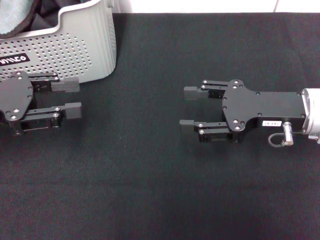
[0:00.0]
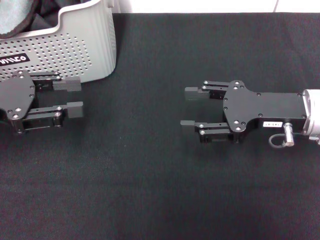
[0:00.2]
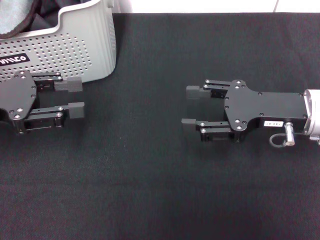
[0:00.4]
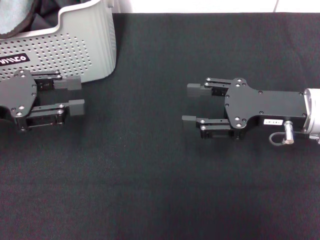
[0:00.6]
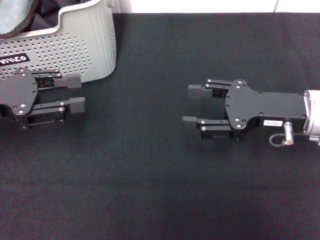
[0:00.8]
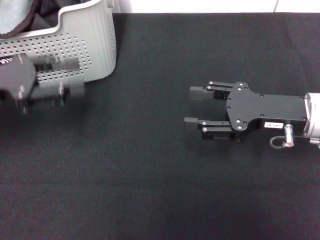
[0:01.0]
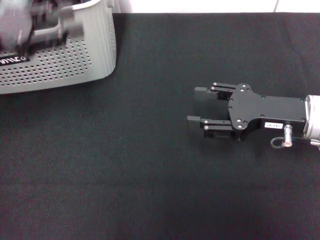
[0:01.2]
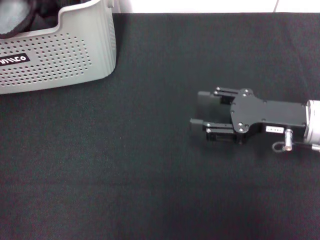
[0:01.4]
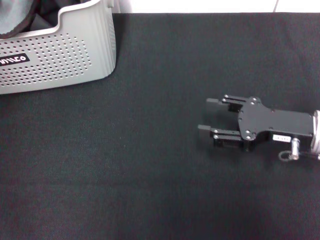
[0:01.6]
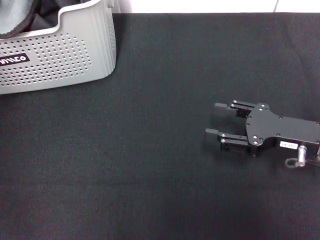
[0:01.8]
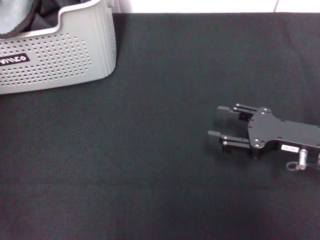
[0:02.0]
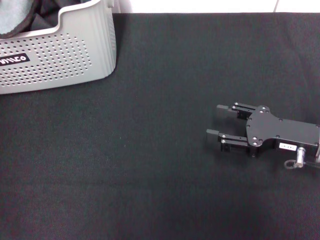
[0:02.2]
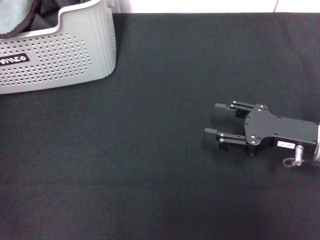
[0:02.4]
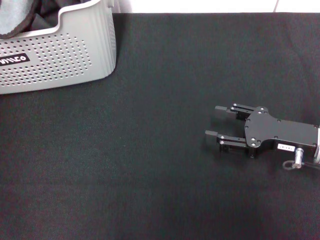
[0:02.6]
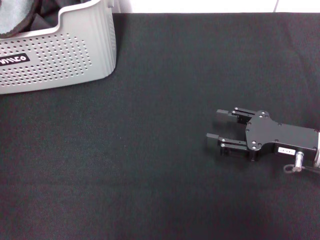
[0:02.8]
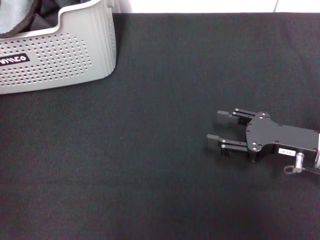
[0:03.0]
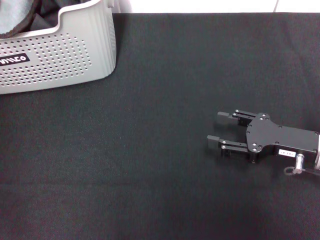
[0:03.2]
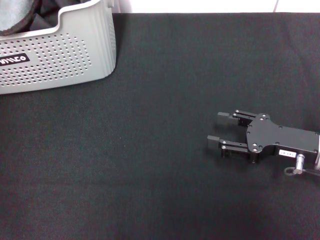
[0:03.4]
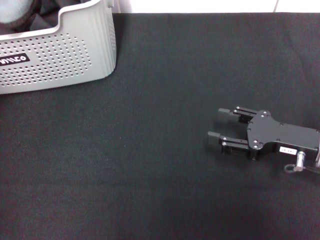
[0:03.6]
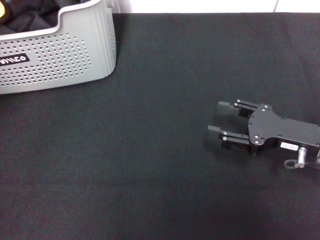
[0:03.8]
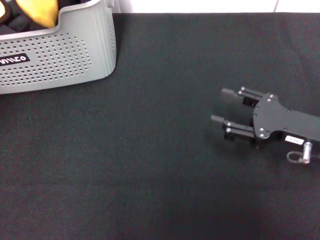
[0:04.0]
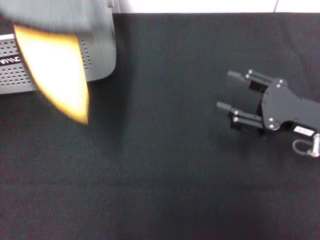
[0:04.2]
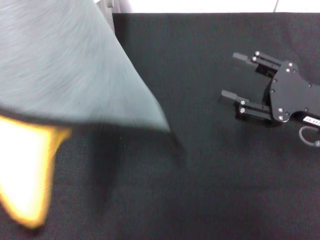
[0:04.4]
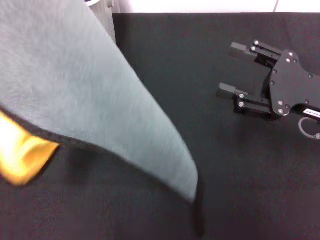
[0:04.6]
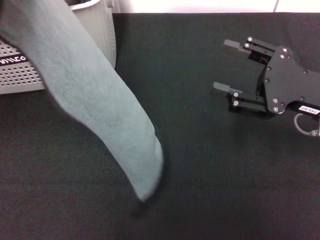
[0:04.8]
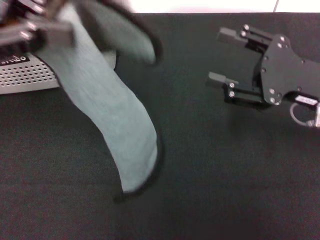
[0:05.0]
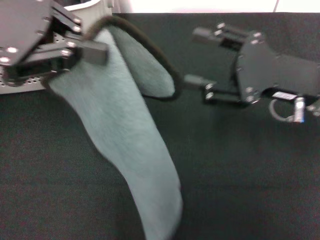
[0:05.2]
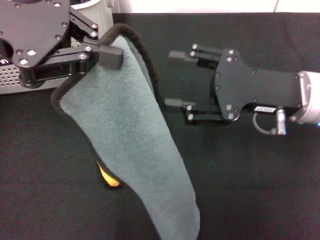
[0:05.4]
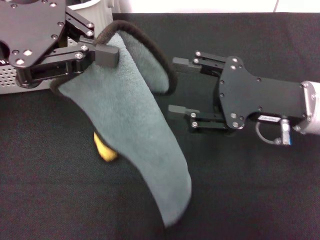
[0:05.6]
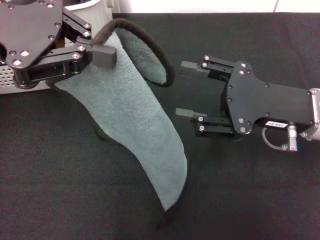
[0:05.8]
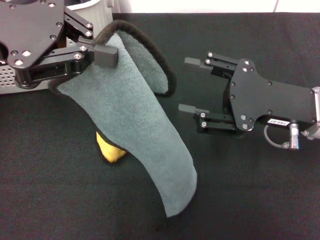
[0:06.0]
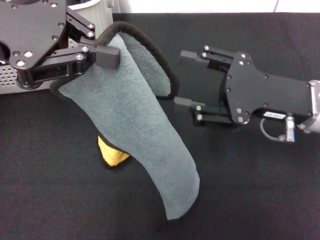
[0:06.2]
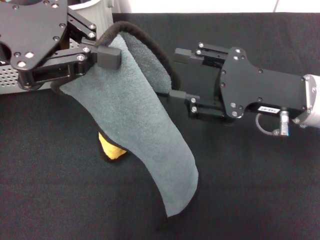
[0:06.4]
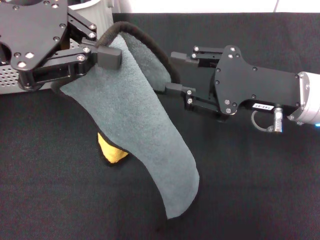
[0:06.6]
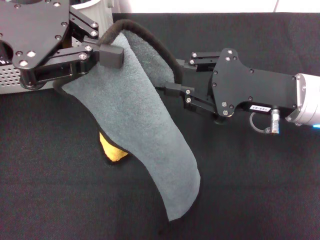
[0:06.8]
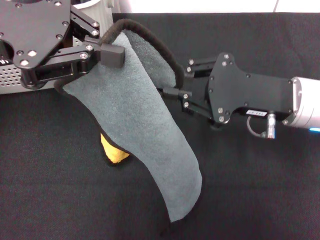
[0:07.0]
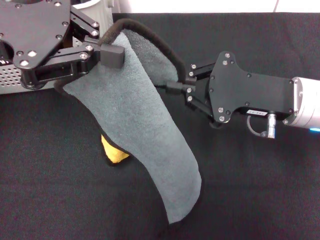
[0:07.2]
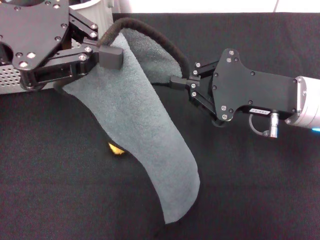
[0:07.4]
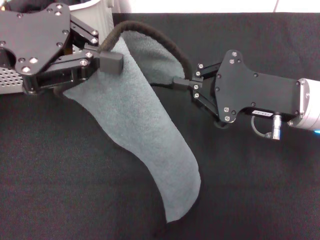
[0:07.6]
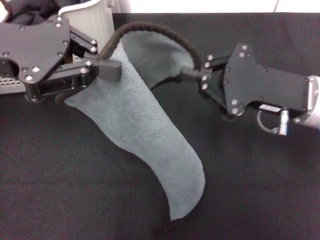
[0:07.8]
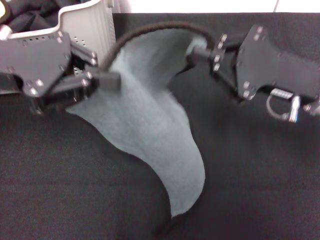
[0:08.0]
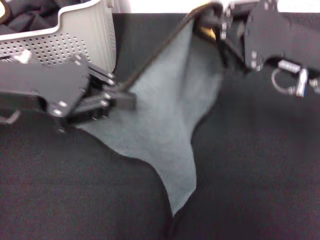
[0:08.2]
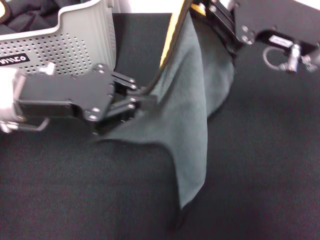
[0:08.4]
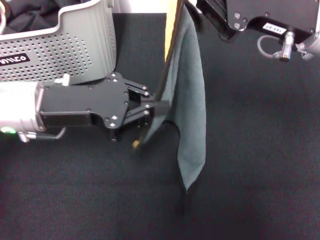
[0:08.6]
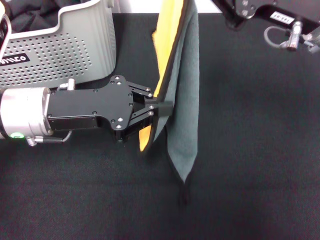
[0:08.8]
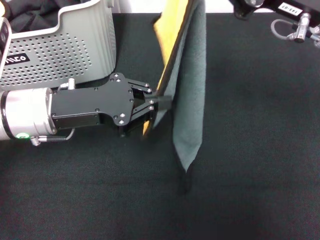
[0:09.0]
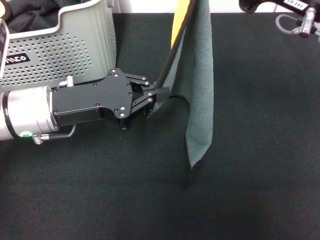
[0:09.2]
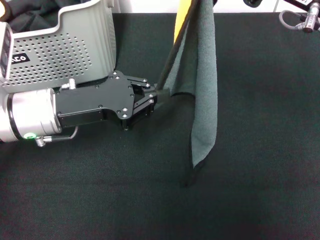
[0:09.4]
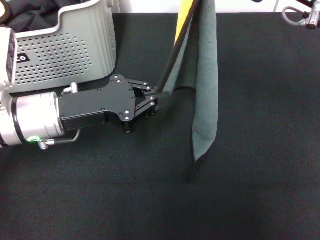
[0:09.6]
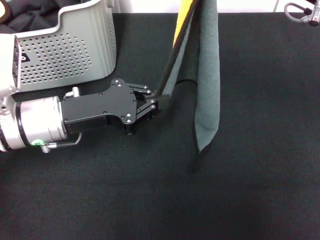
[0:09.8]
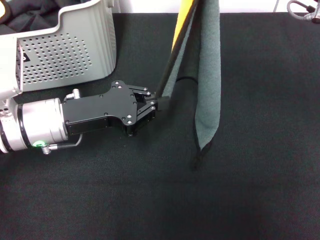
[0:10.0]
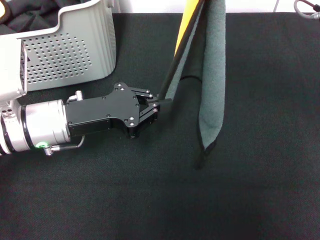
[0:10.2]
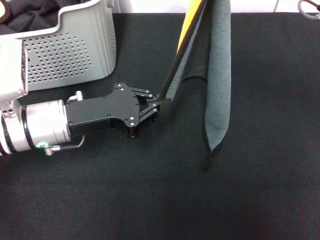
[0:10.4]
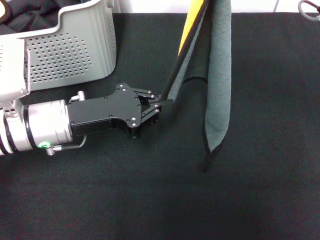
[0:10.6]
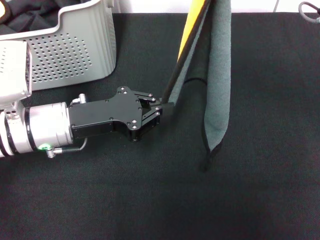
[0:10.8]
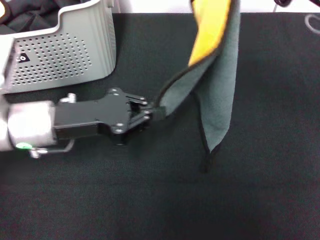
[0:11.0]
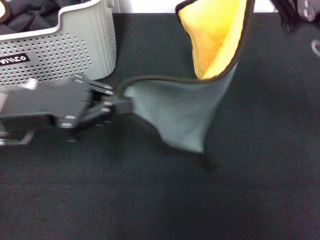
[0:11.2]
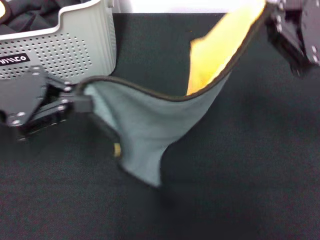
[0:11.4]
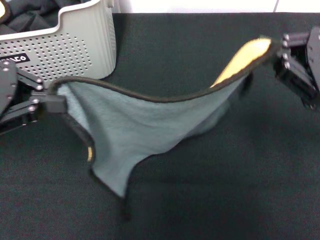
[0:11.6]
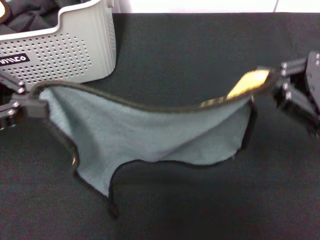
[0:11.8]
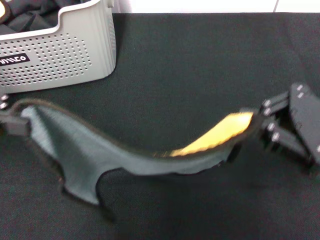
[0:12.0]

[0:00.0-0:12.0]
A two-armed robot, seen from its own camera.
Task of the whole recording: pick up the towel from the storage box and lay it flat on the black tablecloth.
Step, 0:00.0 to 0:03.2: Pick up a towel with the left gripper.
Step, 0:03.4 to 0:07.2: Spread the towel flat with the left gripper.
0:00.0 to 0:01.6: The left gripper goes about 15 cm upward and forward; the right gripper shifts by some 5 cm.
0:01.6 to 0:03.0: The left gripper is displaced to the left by roughly 5 cm.
0:03.0 to 0:04.4: The right gripper is displaced upward by approximately 5 cm, while the left gripper is displaced backward and upward by some 15 cm, and closes up.
0:04.4 to 0:06.0: The left gripper moves downward and to the right, approximately 10 cm. Meanwhile the right gripper travels to the left by about 5 cm.
0:06.0 to 0:07.6: The right gripper closes up.
0:07.6 to 0:09.0: The right gripper goes some 10 cm upward; the left gripper is displaced downward by approximately 15 cm.
0:10.4 to 0:12.0: The right gripper goes about 10 cm backward and downward; the left gripper shifts approximately 20 cm upward and to the left.

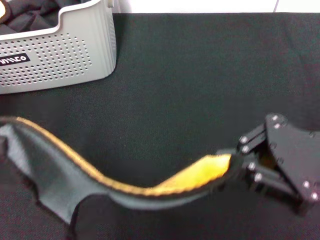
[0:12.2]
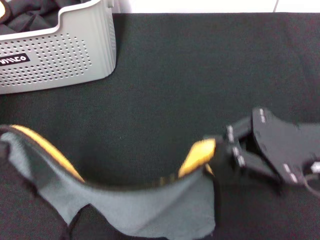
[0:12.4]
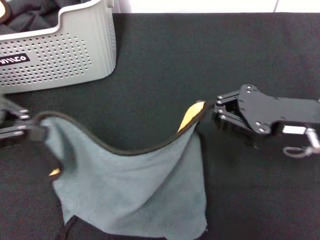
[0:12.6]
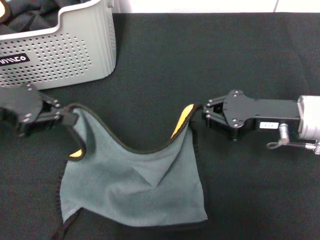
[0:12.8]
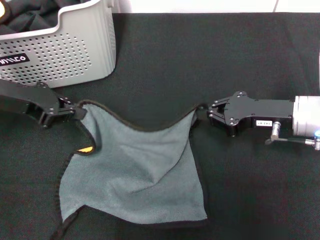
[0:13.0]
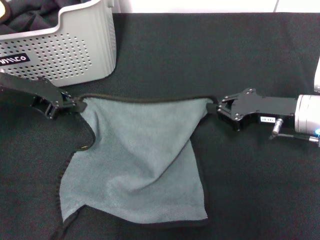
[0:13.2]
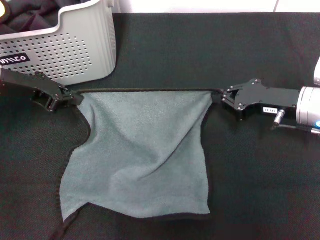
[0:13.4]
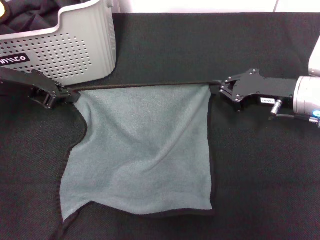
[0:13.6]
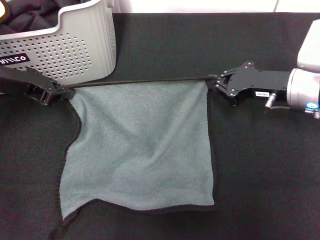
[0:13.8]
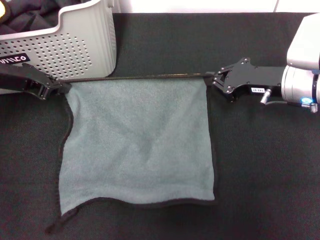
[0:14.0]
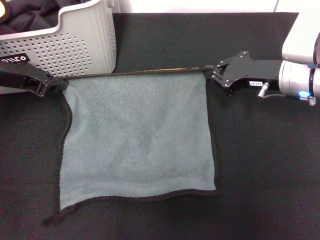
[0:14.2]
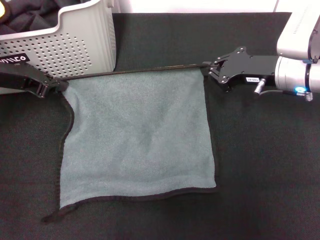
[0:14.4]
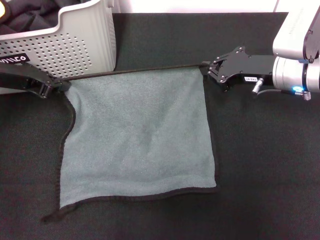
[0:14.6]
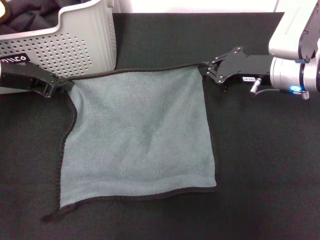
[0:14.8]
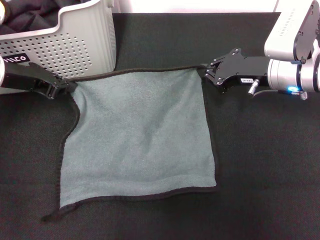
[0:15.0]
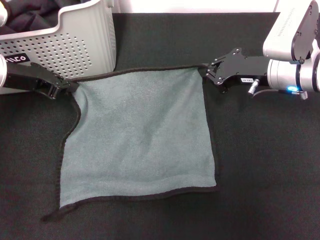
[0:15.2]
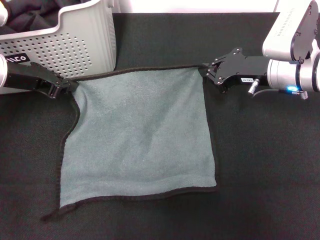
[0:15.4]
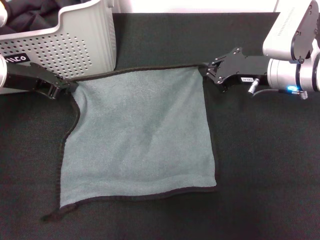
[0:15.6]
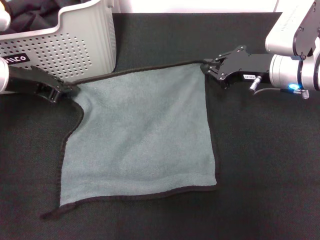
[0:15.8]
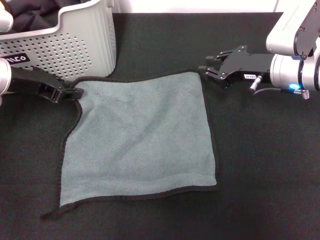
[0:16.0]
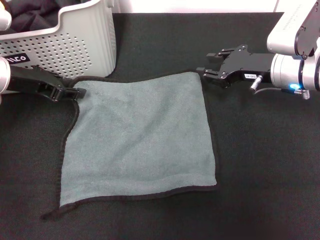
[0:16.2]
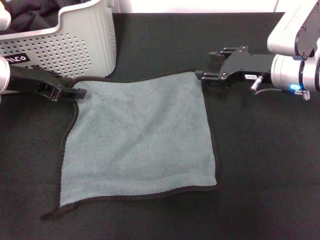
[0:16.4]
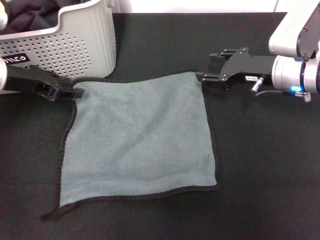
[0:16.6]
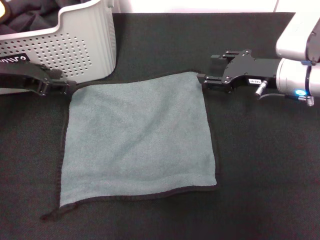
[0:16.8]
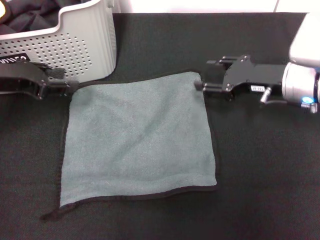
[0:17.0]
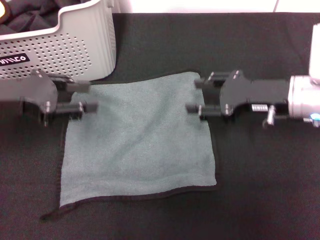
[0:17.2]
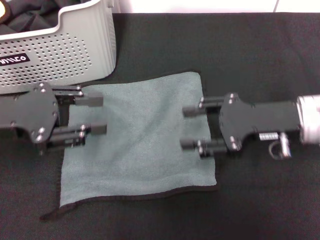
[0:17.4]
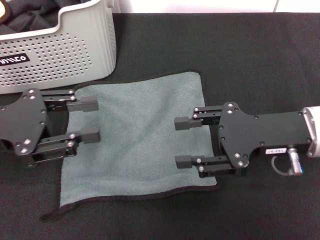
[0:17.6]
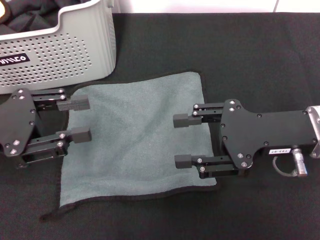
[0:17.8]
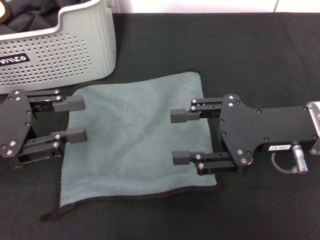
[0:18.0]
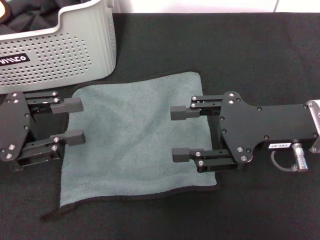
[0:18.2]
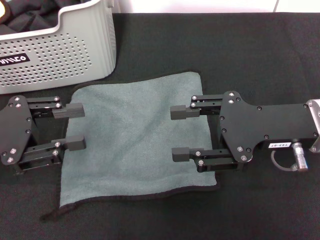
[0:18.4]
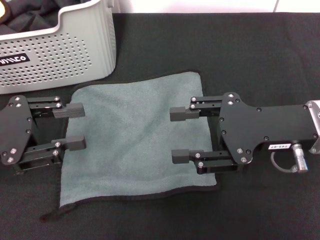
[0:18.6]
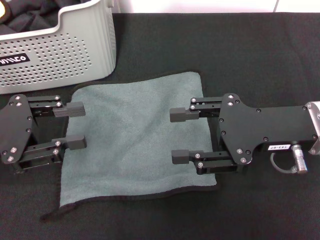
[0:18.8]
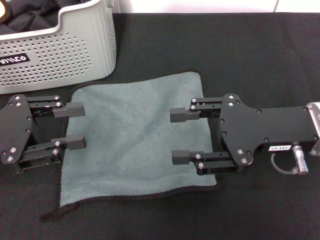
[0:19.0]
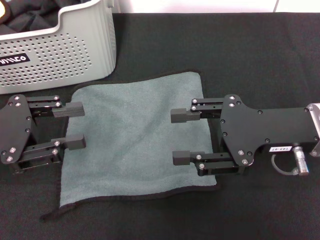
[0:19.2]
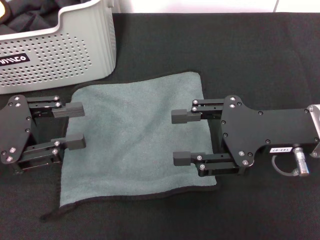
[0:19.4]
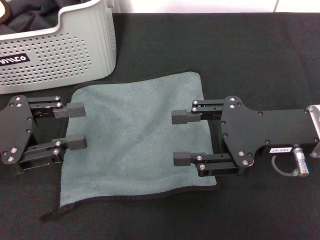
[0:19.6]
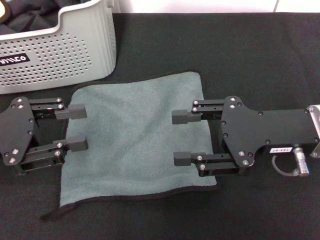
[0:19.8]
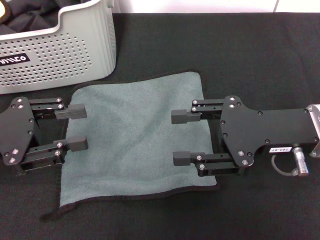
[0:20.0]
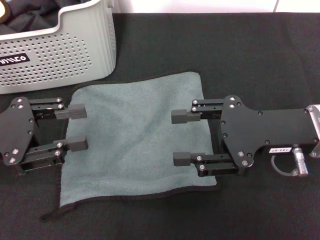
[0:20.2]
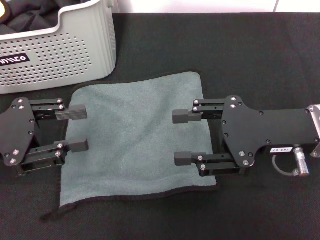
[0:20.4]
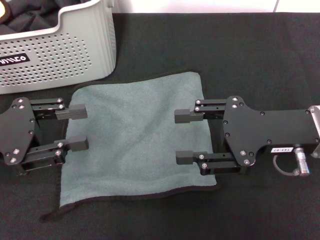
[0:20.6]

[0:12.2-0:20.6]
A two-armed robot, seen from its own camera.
Task of the whole recording: pick up the towel from the storage box and lay it flat on the black tablecloth.
Step, 0:12.2 to 0:15.8: Spread the towel flat with the right gripper.
0:12.2 to 0:13.6: The left gripper travels forward, downward and to the right by approximately 15 cm; the right gripper goes roughly 15 cm forward and downward.
0:13.6 to 0:15.0: The right gripper changes place by about 5 cm.
0:15.0 to 0:16.4: The left gripper opens its fingers; the right gripper opens up.
0:16.4 to 0:17.8: Both grippers move backward, about 15 cm.
0:17.8 to 0:19.2: Neither gripper changes place.
0:19.2 to 0:20.6: Both grippers stay put.

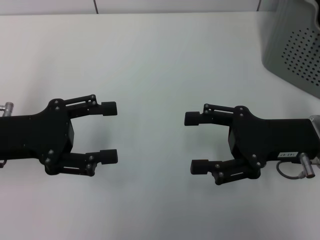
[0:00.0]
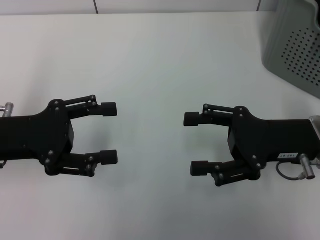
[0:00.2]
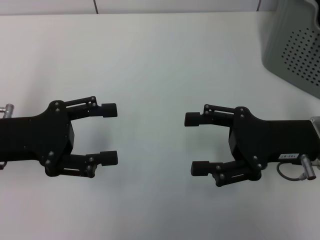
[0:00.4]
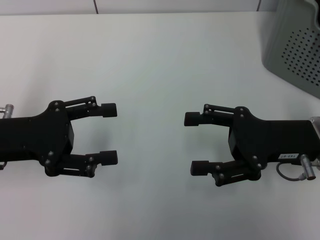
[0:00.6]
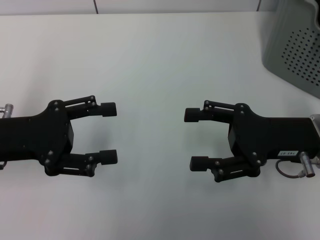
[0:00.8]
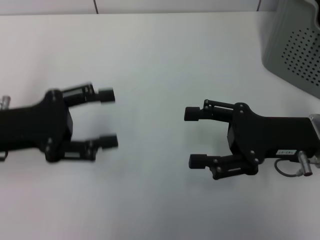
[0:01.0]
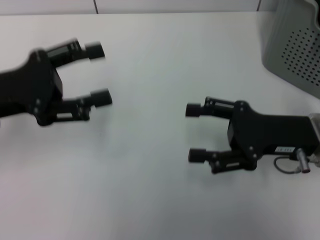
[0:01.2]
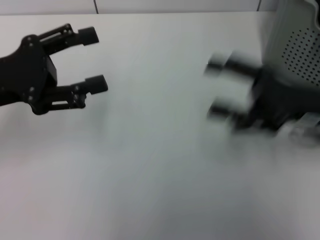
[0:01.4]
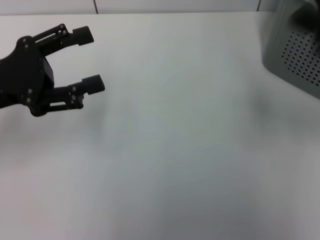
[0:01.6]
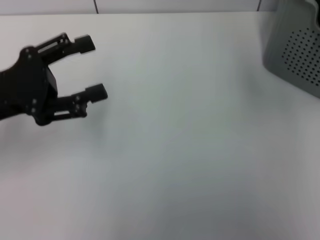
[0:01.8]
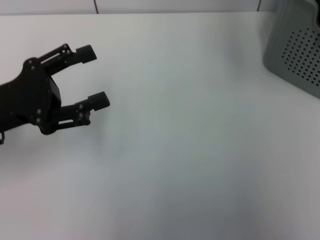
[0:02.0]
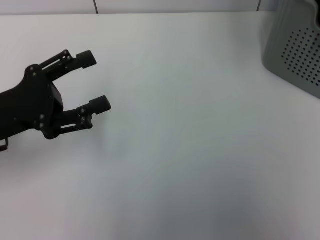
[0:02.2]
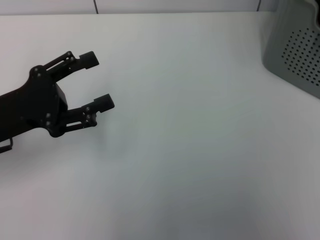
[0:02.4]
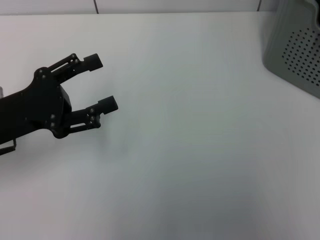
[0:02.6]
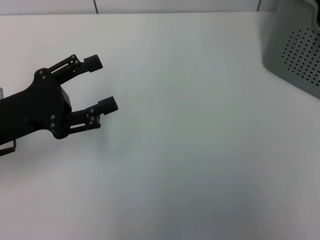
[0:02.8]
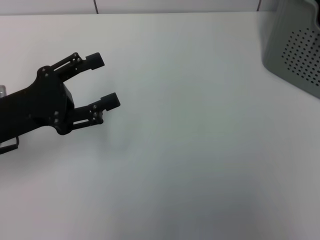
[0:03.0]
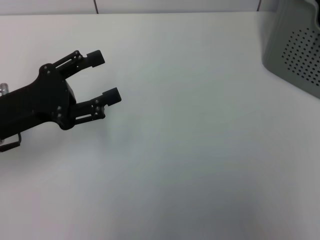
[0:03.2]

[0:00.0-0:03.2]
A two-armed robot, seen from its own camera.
Task of the whole recording: pick up the towel from the storage box and lay it flat on the table.
0:00.0 to 0:01.6: The right gripper heads upward, covering roughly 10 cm.
0:01.6 to 0:03.2: The right gripper travels upward by approximately 20 cm; the left gripper shifts by some 5 cm.
